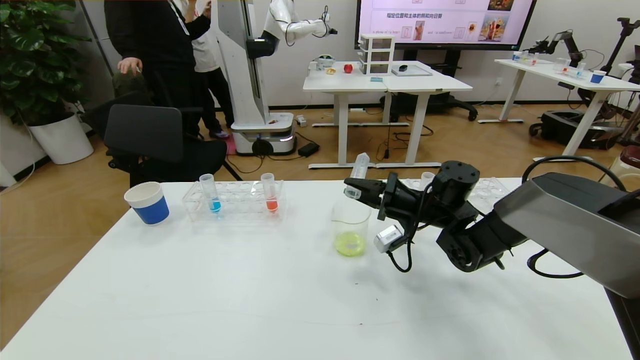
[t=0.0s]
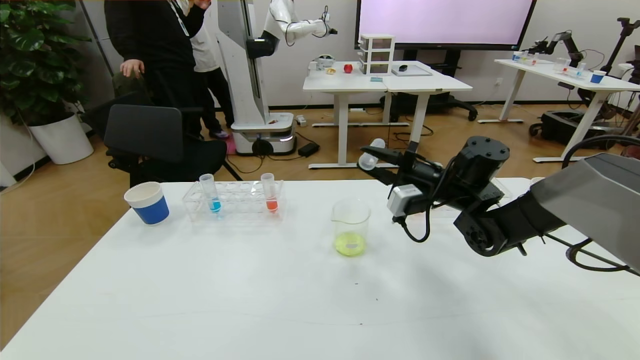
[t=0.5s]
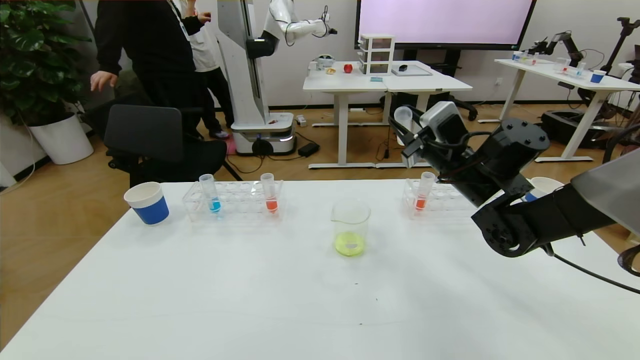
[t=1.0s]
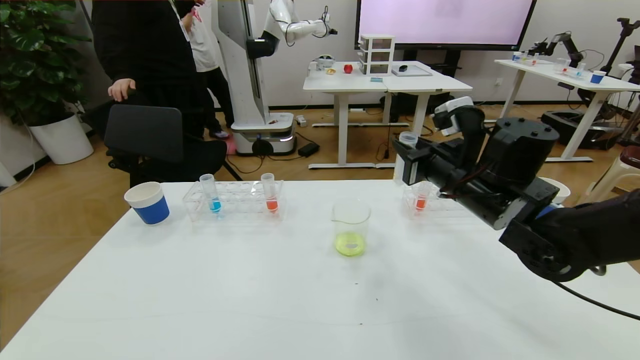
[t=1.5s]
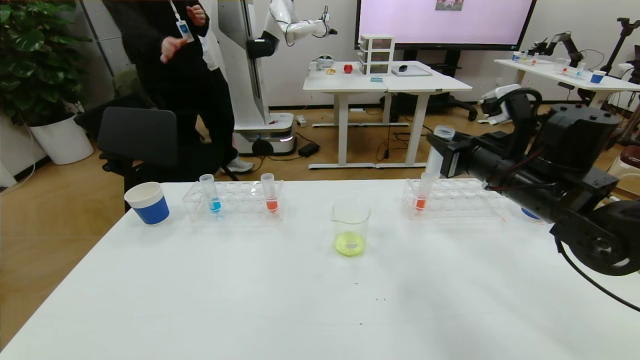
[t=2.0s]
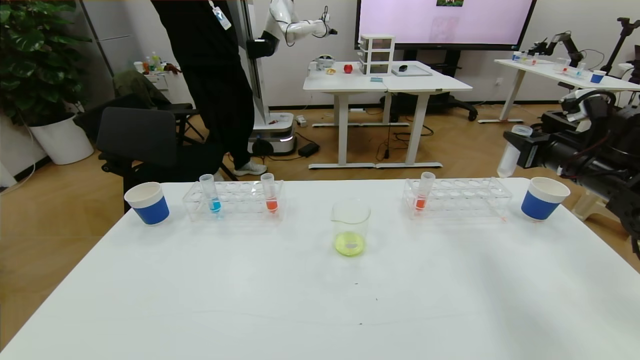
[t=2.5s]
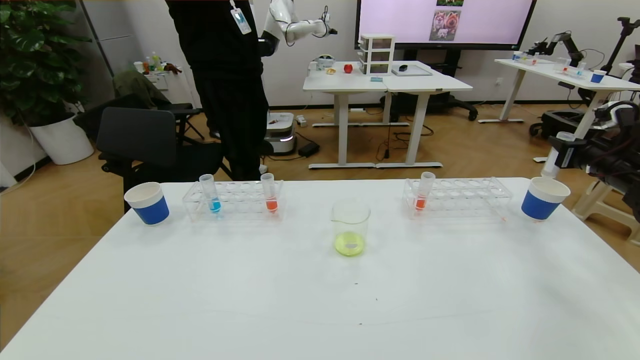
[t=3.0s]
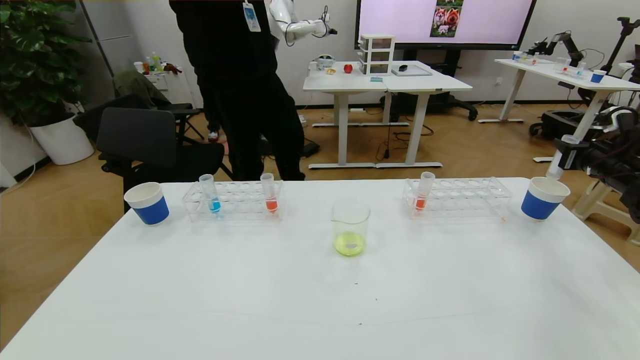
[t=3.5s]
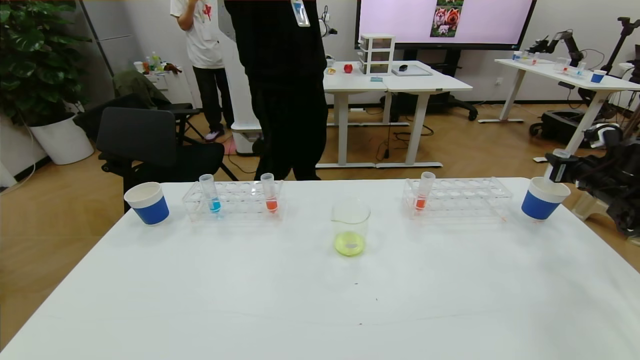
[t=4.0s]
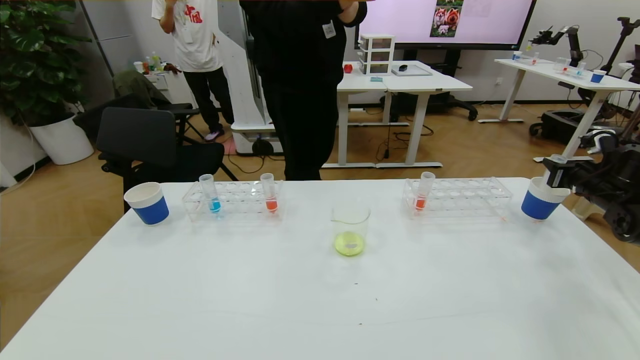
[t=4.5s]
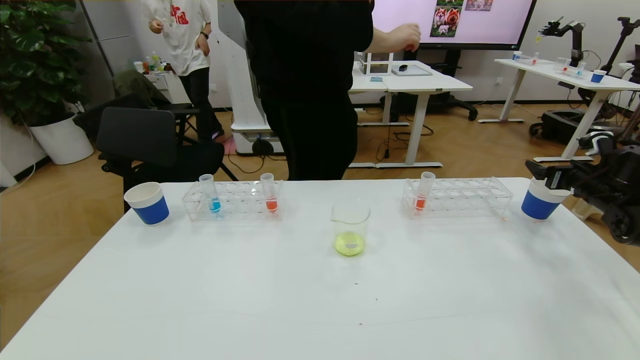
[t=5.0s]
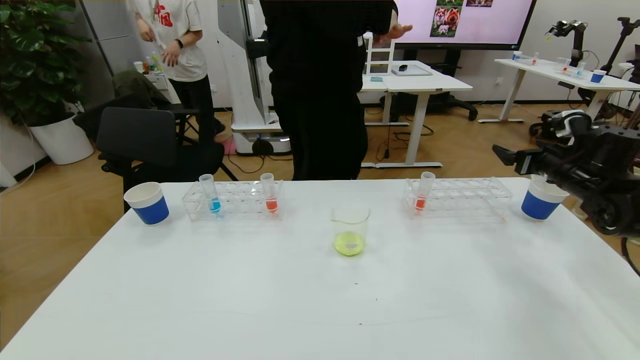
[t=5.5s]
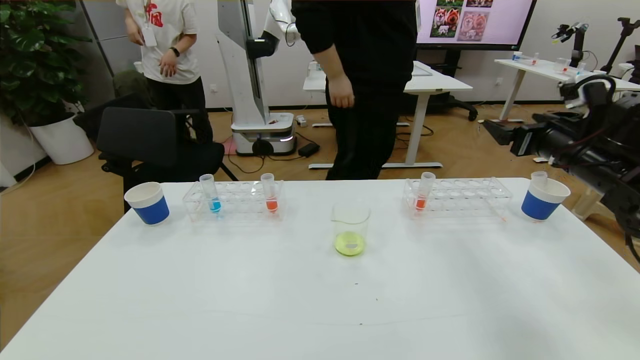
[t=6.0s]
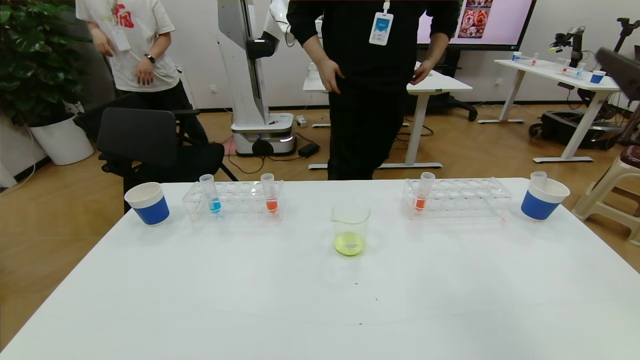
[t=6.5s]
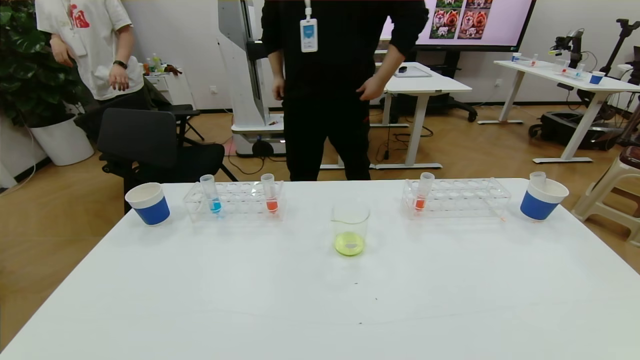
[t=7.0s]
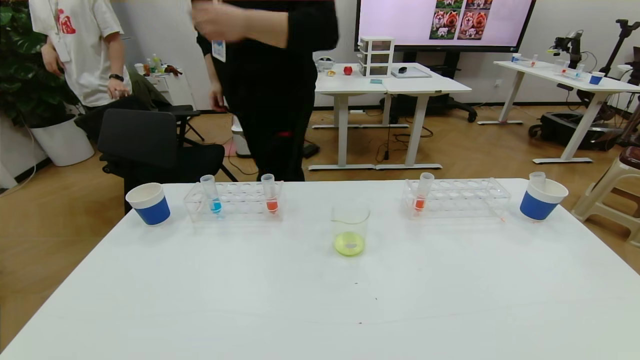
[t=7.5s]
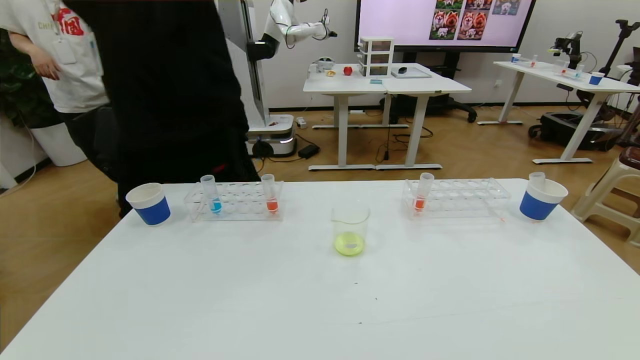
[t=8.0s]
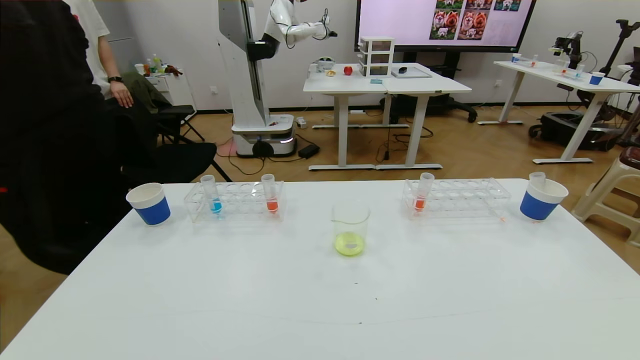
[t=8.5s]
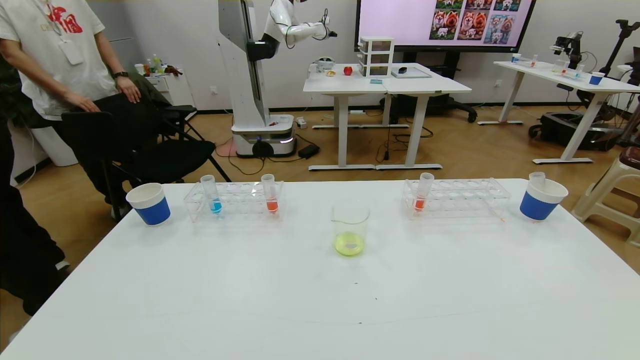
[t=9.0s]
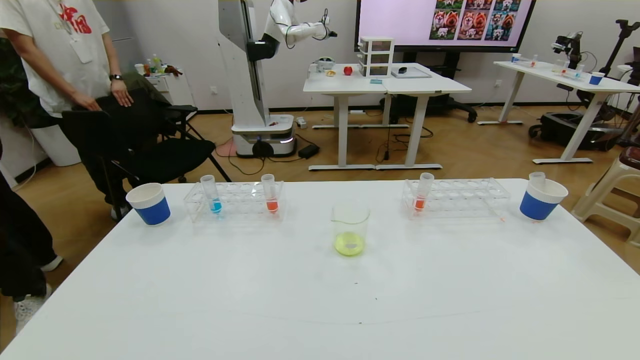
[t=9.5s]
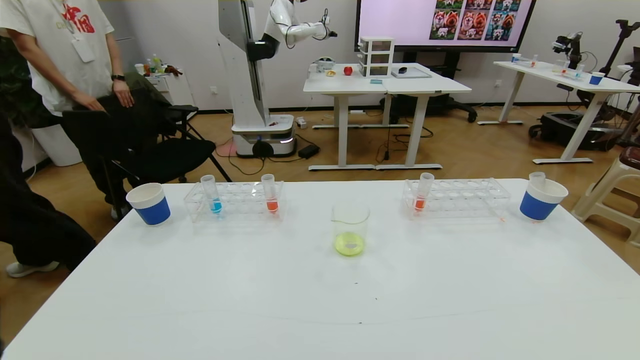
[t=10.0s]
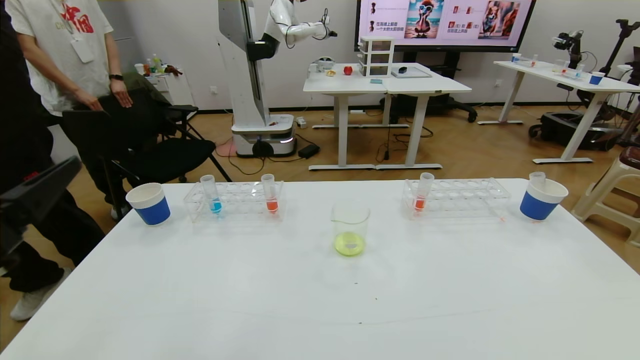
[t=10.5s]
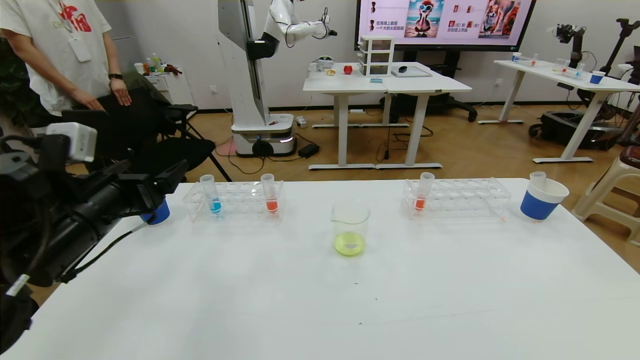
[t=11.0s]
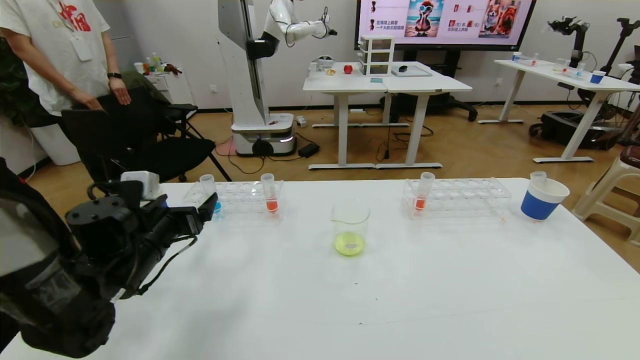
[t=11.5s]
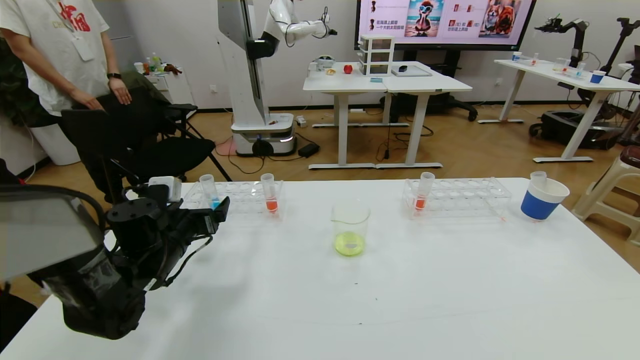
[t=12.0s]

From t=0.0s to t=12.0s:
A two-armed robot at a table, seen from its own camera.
Task of the whole recording: pick up the test tube with yellow pigment and the test tube with blue pigment by grippers and pour them into the beaker.
Step, from t=0.0s to t=8.5s: Pour the yellow reagent into the graduated cylinder and place the test tube into the paper cup.
From t=0.0s to t=2.0s: The right gripper travels upward, backward and to the right by about 15 cm.
From t=2.0s to t=4.0s: The right gripper travels to the right by roughly 25 cm.
From t=4.0s to t=6.0s: The right gripper goes approximately 20 cm to the left, upward and backward, and opens.
From t=6.0s to t=8.0s: The right gripper heads backward, covering approximately 40 cm.
From t=8.0s to t=10.0s: The left gripper moves upward, approximately 10 cm, while the right gripper shifts roughly 10 cm downward.
From t=10.0s to t=12.0s: The left gripper shifts roughly 35 cm forward.

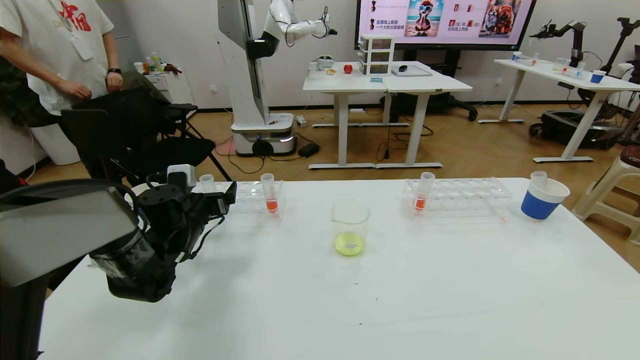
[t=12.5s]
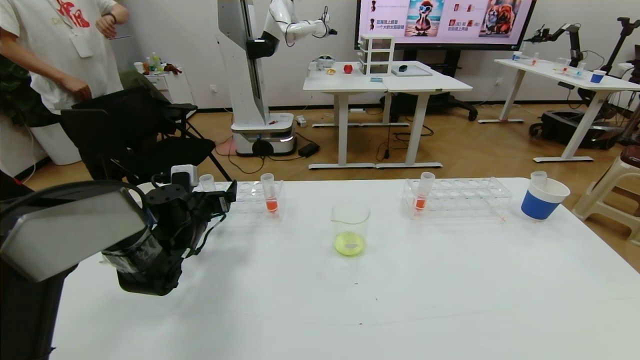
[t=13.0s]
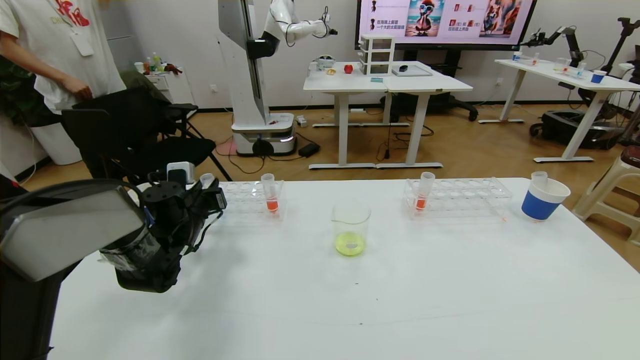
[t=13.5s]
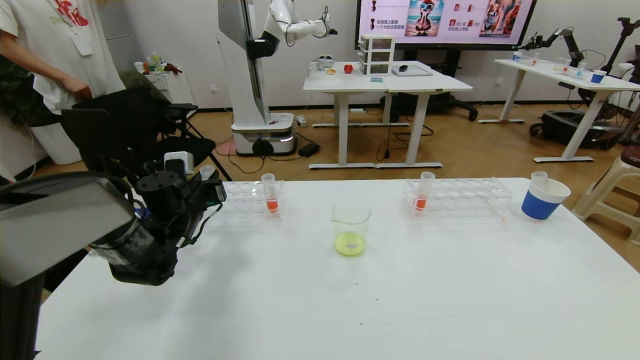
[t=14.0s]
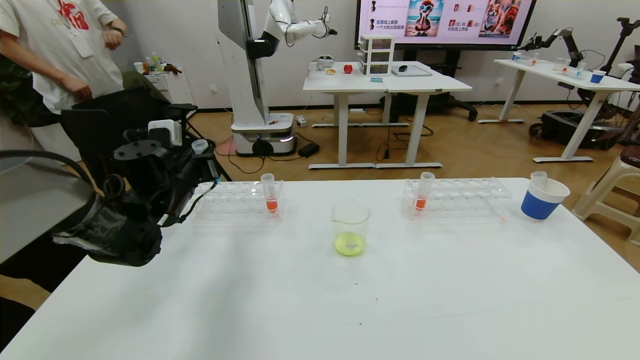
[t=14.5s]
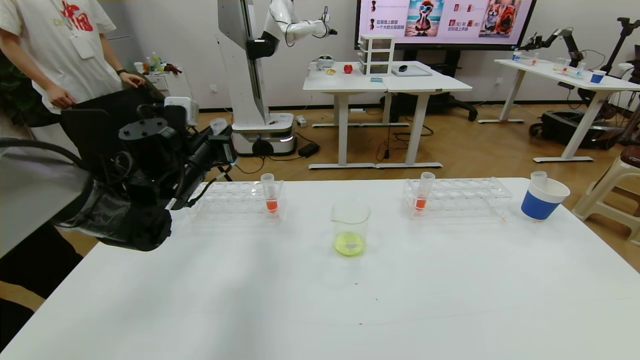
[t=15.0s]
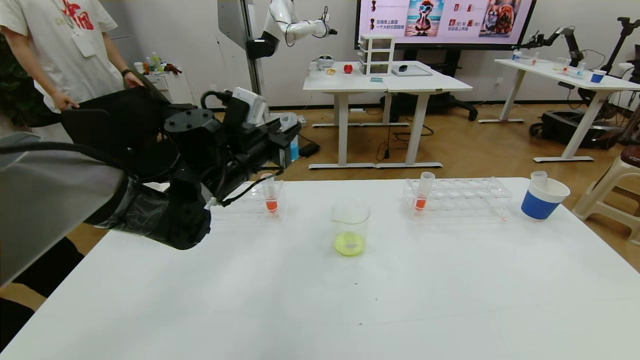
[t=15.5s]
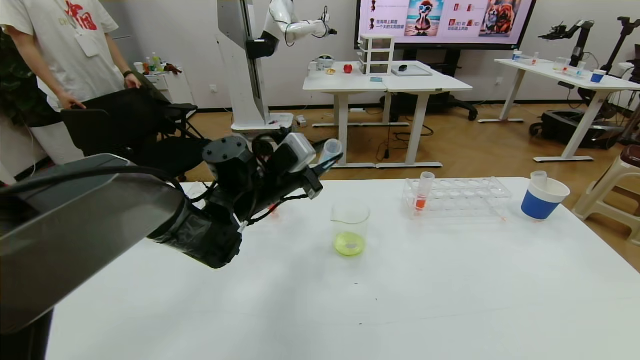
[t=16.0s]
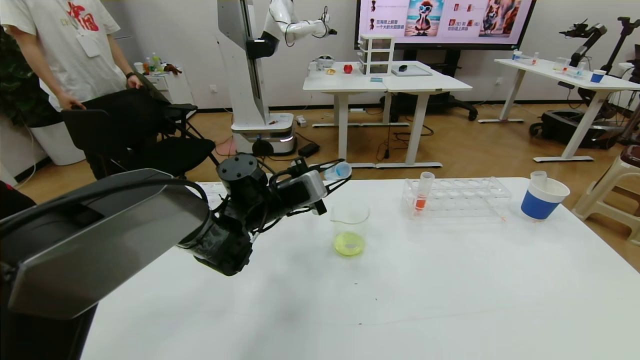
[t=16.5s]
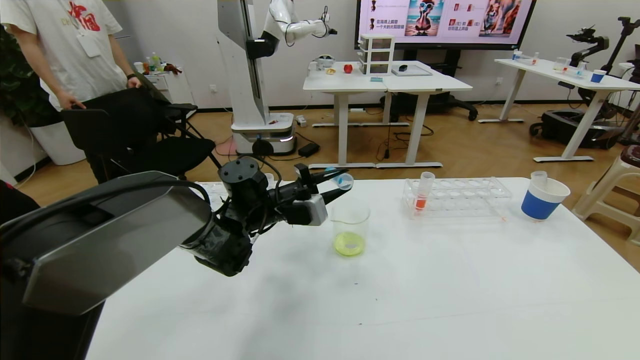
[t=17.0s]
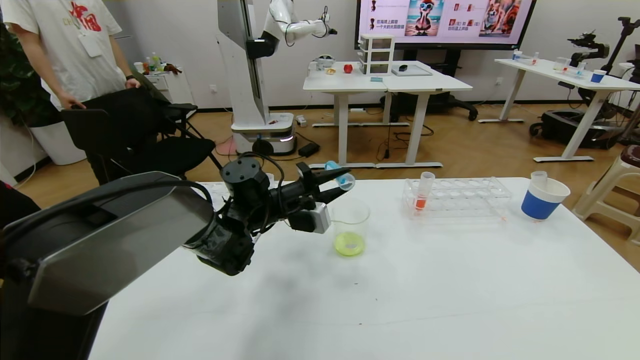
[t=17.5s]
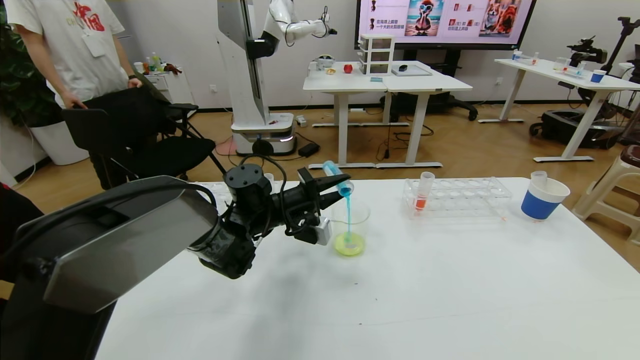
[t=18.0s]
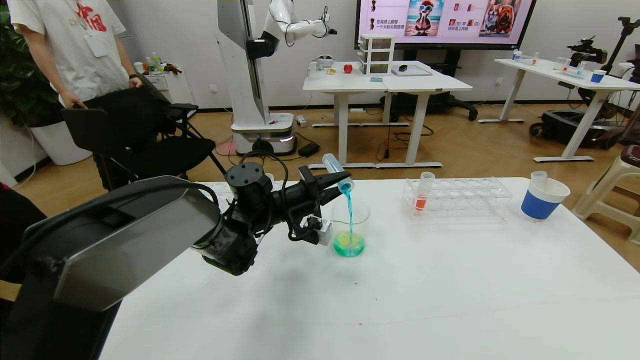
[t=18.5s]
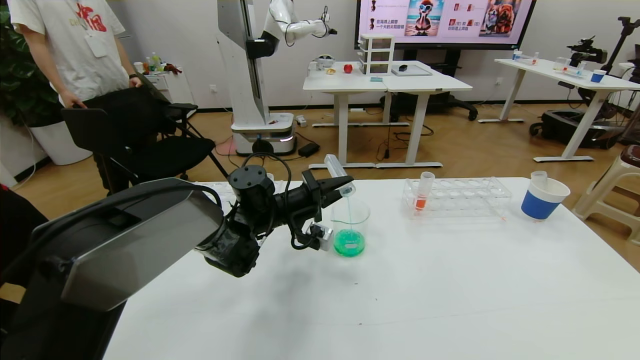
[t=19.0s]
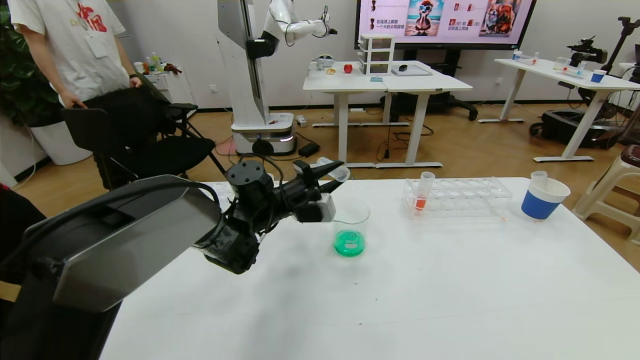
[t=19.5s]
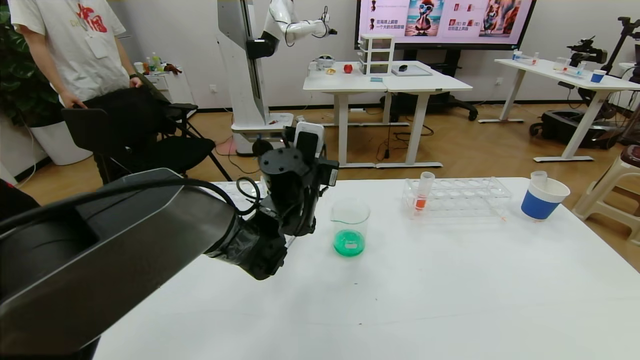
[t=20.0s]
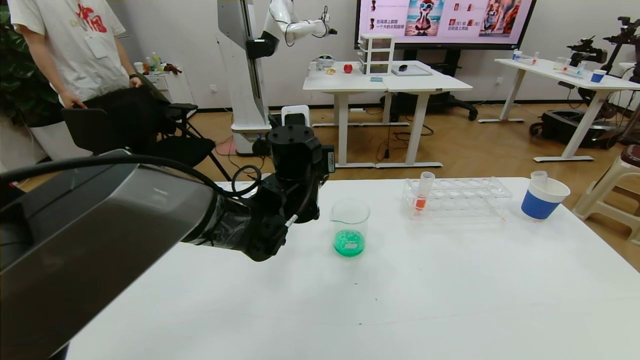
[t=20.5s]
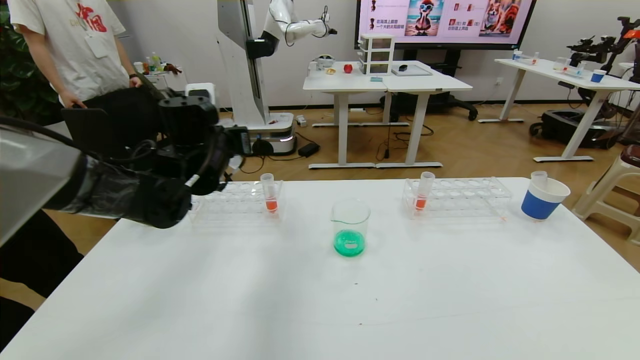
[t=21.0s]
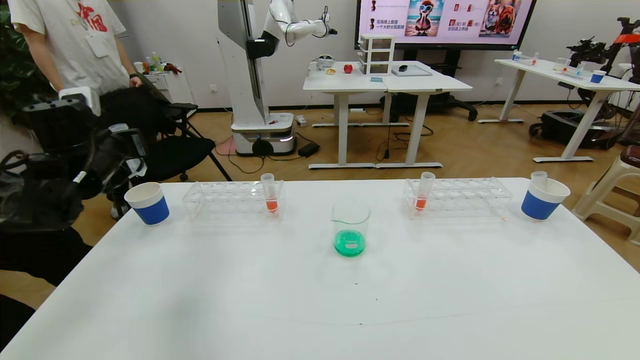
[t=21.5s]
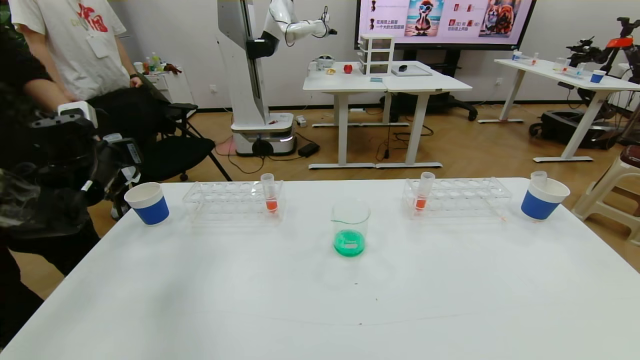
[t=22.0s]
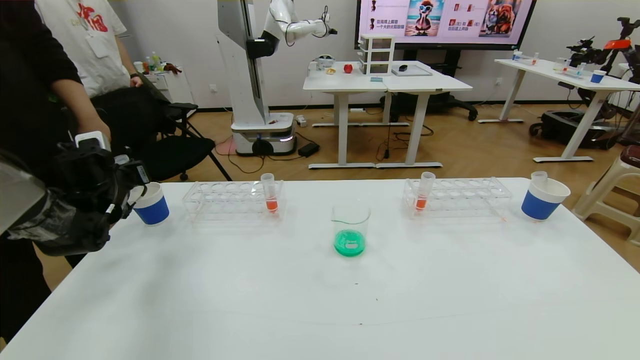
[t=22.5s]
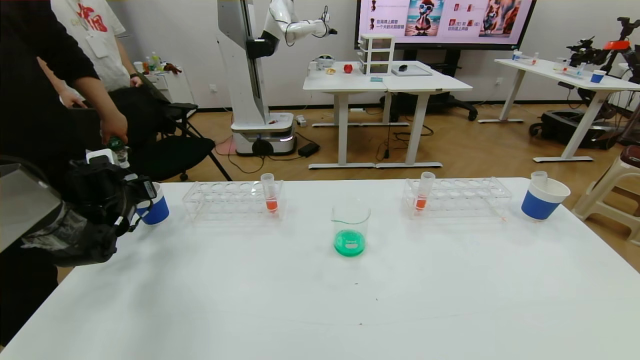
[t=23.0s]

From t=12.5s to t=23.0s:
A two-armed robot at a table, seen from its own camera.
Task of the whole recording: pick up the test tube with yellow pigment and the test tube with blue pigment by grippers and pour them into the beaker.
From t=12.5s to t=14.5s: The left gripper moves upward, roughly 10 cm, and closes.
From t=14.5s to t=16.5s: The left gripper goes some 15 cm to the right.
From t=19.0s to t=21.0s: The left gripper travels upward and to the left by approximately 15 cm.
From t=21.0s to t=23.0s: The left gripper shifts some 25 cm to the left and downward.
